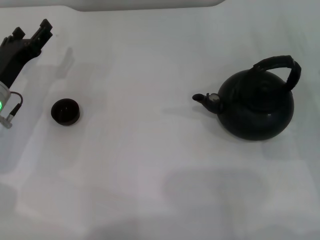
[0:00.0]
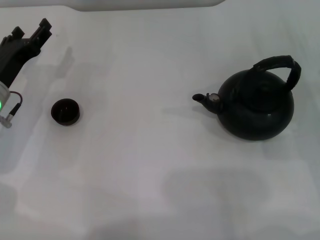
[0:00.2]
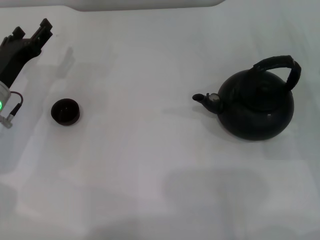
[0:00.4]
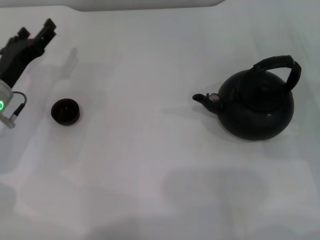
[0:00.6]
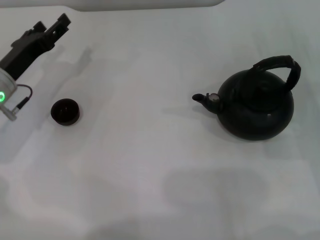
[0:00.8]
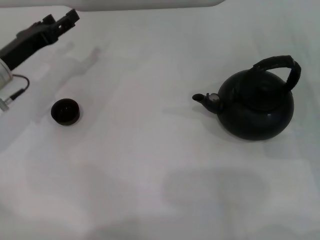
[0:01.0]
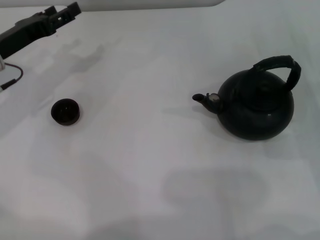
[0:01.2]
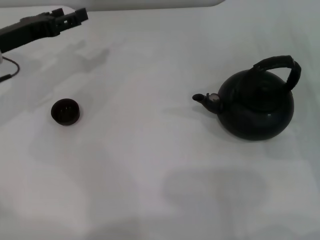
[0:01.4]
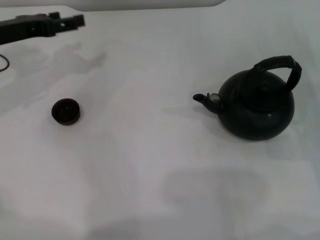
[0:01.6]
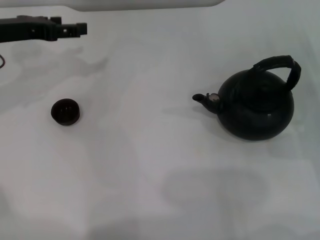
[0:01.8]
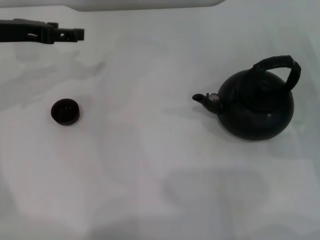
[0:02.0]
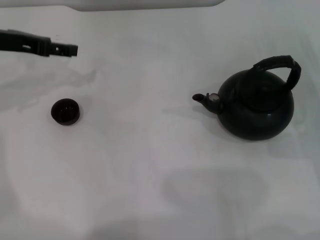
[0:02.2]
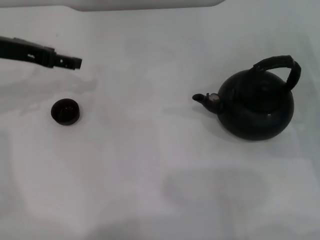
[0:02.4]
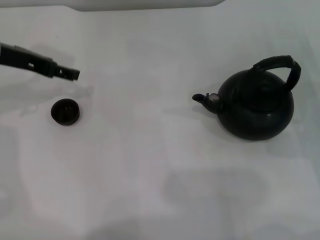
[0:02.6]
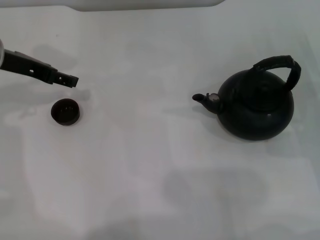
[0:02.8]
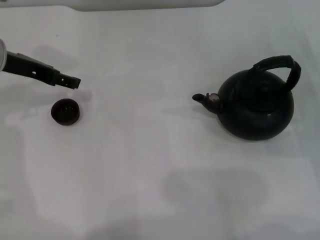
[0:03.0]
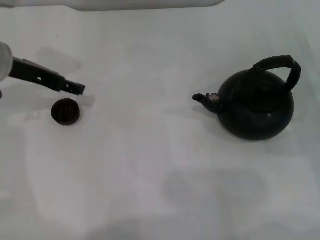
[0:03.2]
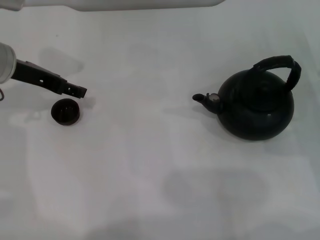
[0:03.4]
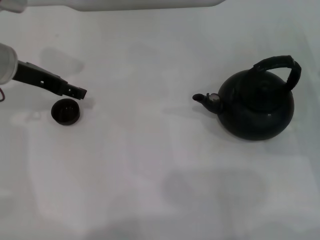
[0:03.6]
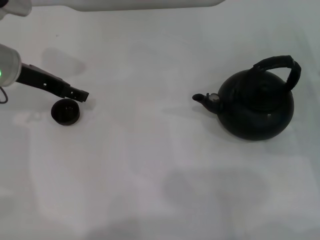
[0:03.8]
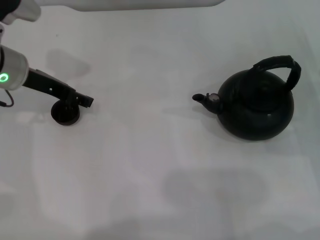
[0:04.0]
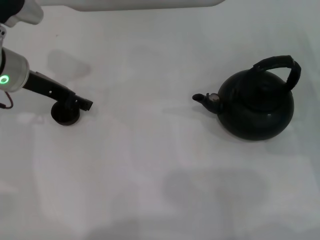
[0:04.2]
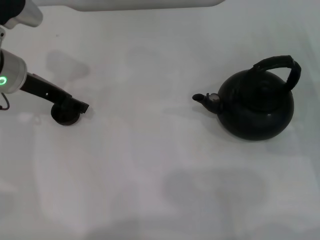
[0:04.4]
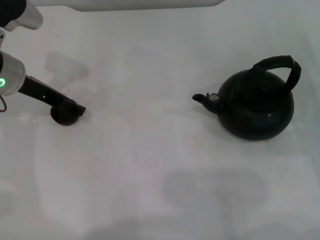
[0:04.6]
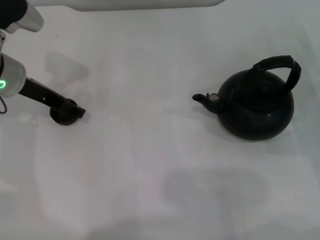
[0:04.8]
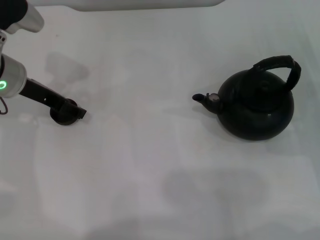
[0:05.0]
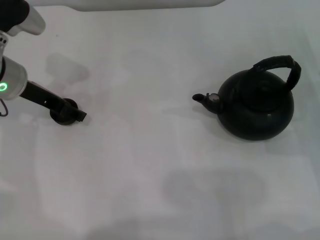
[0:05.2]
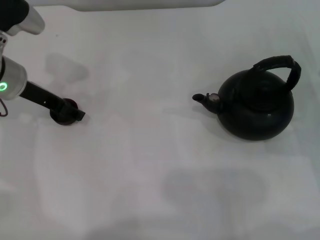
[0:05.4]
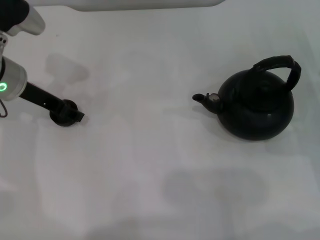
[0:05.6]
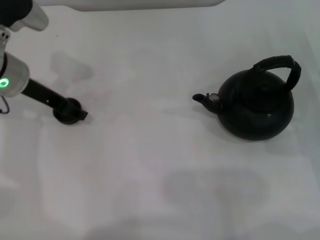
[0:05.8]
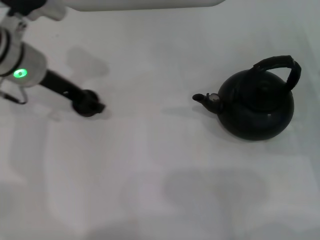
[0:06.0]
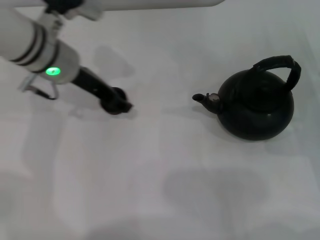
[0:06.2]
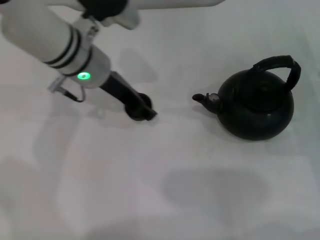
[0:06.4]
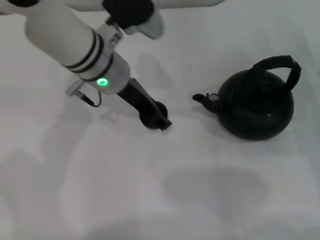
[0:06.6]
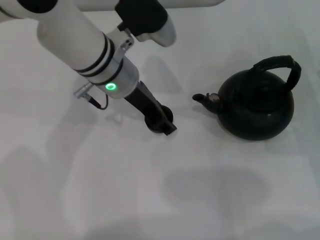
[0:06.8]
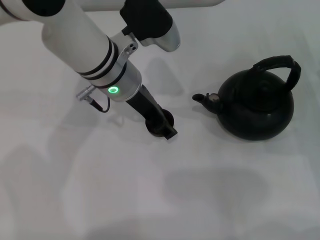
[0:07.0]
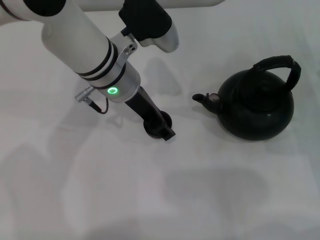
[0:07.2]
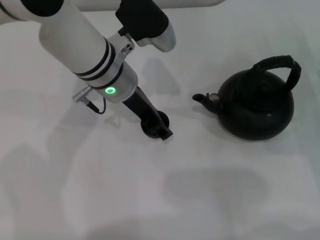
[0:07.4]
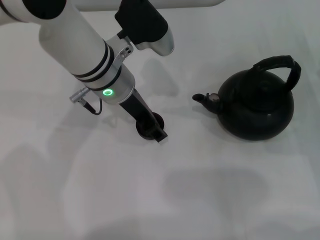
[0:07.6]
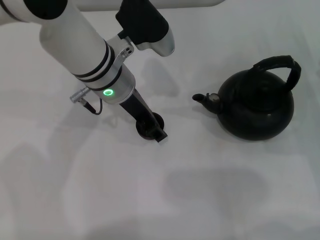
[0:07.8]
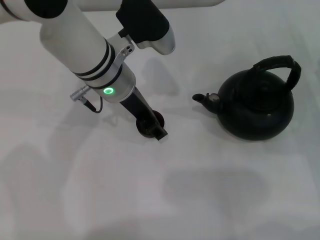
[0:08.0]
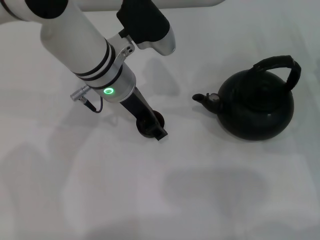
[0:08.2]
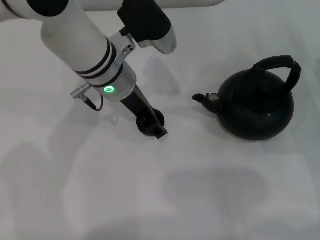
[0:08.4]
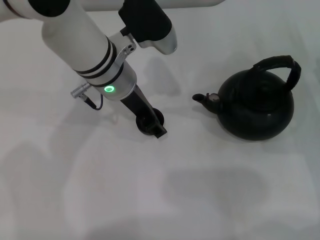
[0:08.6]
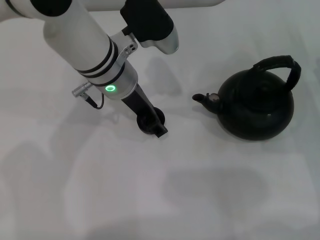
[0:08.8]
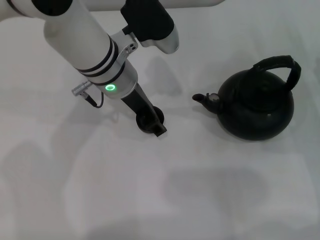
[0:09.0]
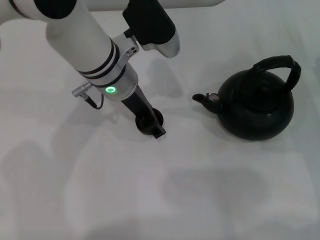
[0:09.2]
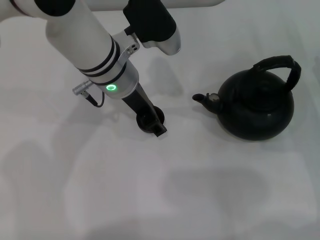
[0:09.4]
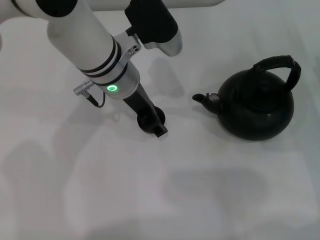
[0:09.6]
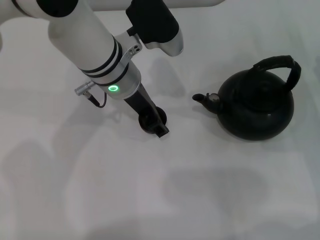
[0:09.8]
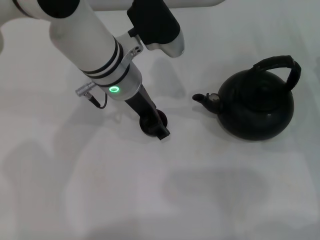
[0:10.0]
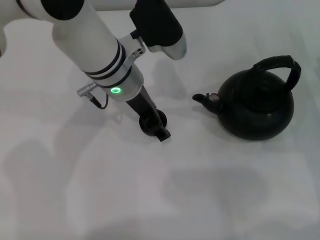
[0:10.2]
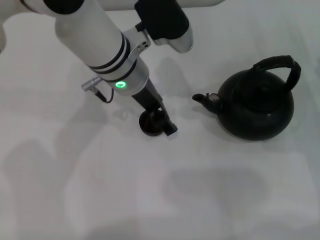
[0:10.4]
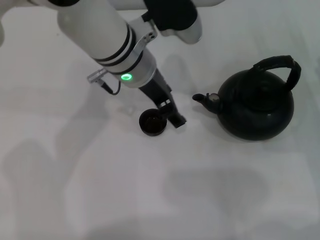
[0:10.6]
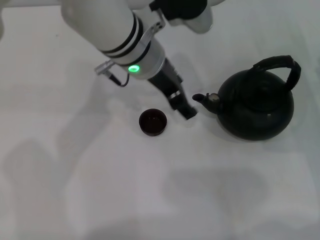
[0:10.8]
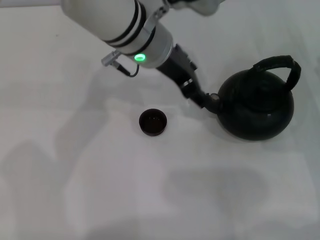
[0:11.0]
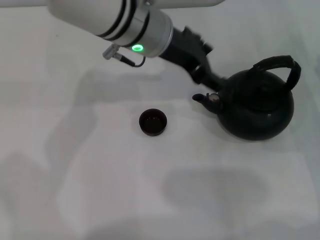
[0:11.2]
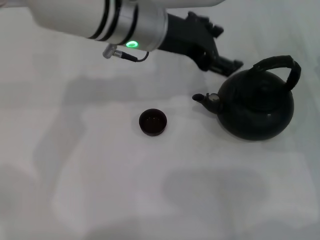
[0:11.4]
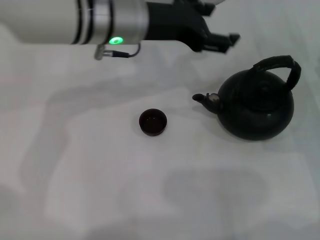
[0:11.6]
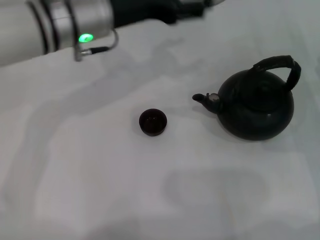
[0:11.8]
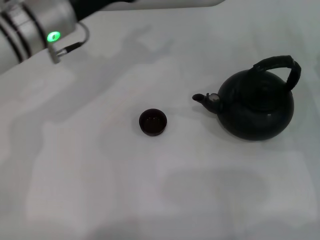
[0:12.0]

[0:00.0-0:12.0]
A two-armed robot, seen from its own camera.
Task of the whole recording: Grasp the handle of the teapot with one hand and pour tea into the teacup.
Step, 0:00.0 to 0:06.0: Pick up the teacup with the left gripper.
Step, 0:06.2 to 0:10.4: Place the teacup in the center of view with the left gripper.
0:00.0 to 0:01.6: The left gripper travels upward and forward by some 10 cm.
0:03.0 to 0:04.4: The grippers stay close to where they were, moving slightly.
0:04.4 to 0:06.0: The left gripper closes its fingers.
0:06.0 to 0:07.6: The left gripper heads to the right, covering some 10 cm.
0:07.6 to 0:09.0: Neither gripper changes place.
0:09.0 to 0:10.4: The left gripper opens its fingers.
0:10.4 to 0:12.0: The left gripper is displaced to the left by about 10 cm.

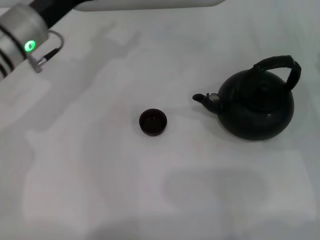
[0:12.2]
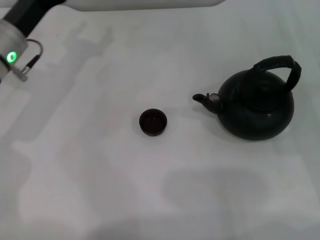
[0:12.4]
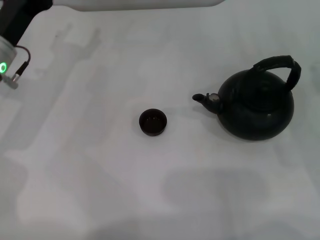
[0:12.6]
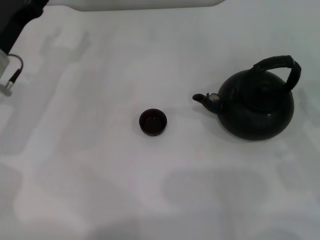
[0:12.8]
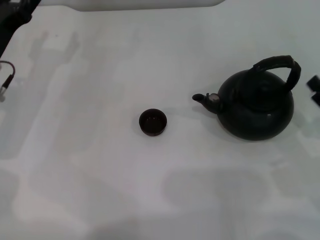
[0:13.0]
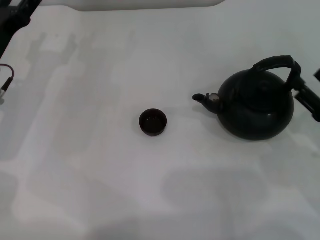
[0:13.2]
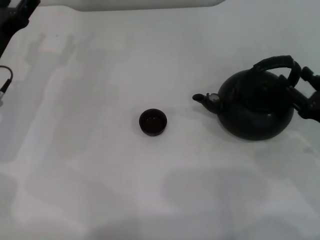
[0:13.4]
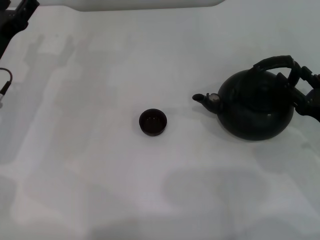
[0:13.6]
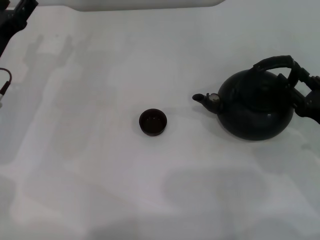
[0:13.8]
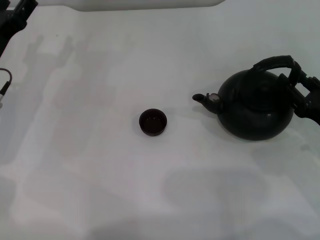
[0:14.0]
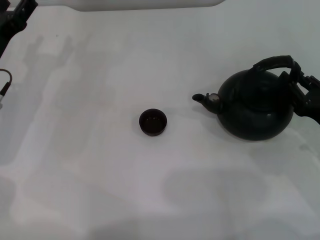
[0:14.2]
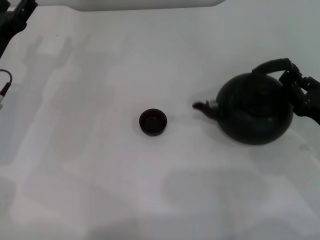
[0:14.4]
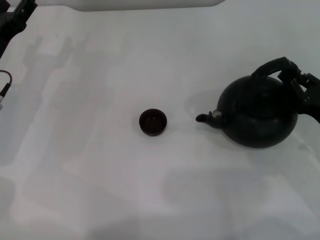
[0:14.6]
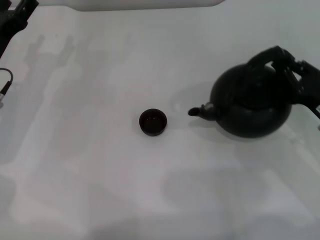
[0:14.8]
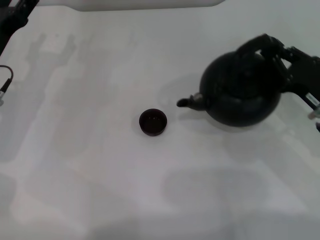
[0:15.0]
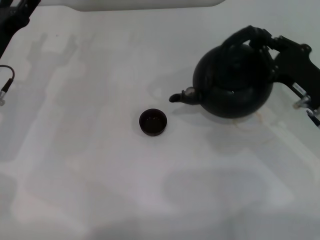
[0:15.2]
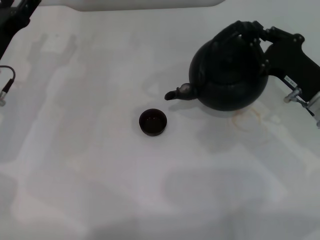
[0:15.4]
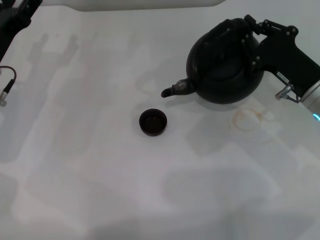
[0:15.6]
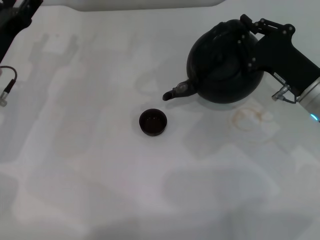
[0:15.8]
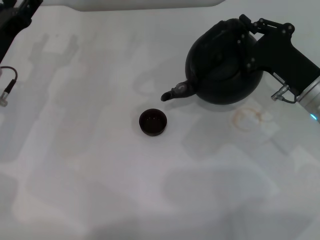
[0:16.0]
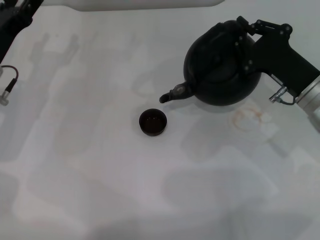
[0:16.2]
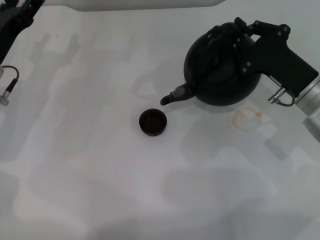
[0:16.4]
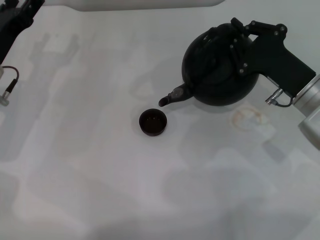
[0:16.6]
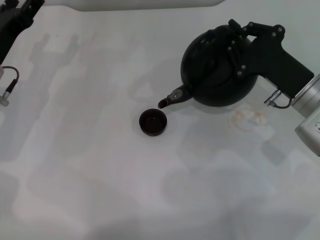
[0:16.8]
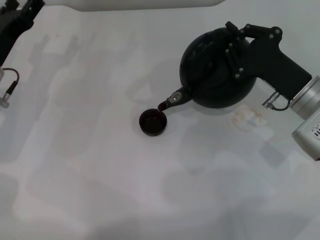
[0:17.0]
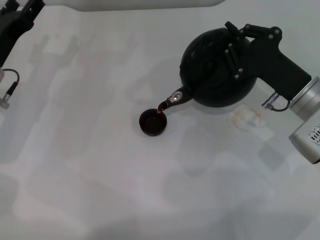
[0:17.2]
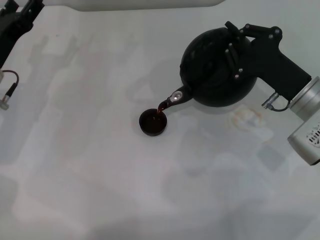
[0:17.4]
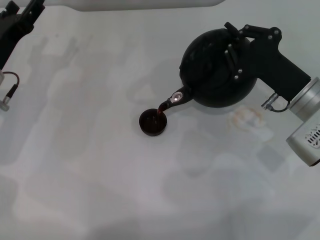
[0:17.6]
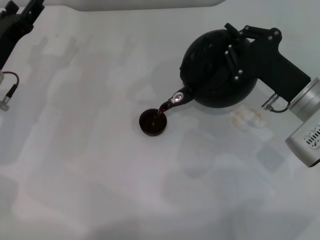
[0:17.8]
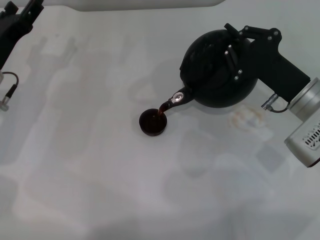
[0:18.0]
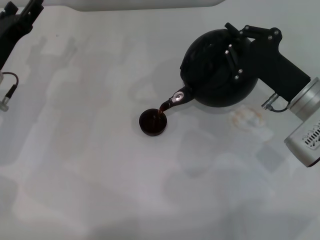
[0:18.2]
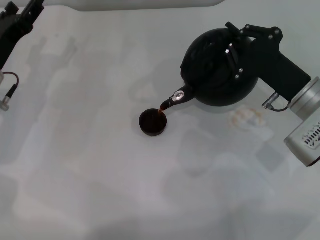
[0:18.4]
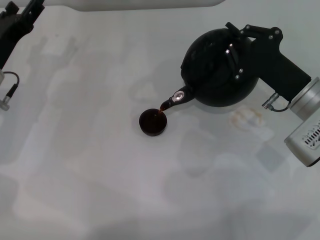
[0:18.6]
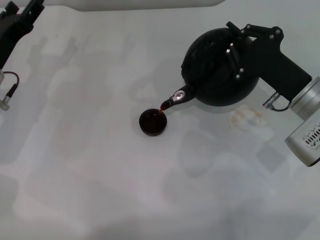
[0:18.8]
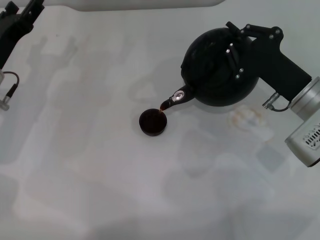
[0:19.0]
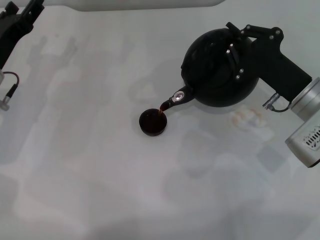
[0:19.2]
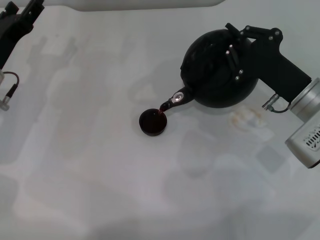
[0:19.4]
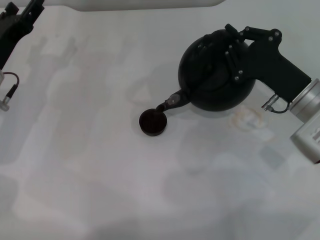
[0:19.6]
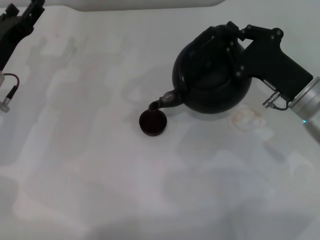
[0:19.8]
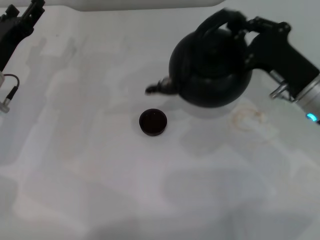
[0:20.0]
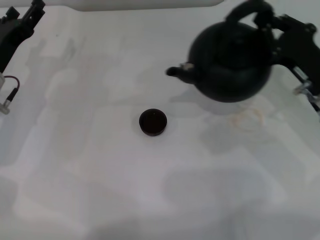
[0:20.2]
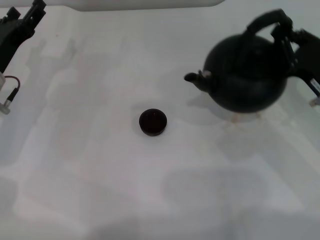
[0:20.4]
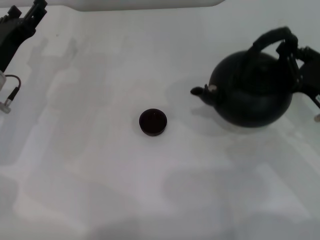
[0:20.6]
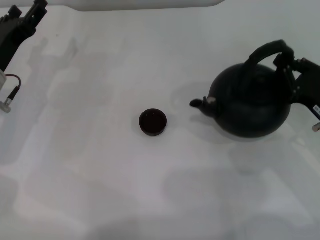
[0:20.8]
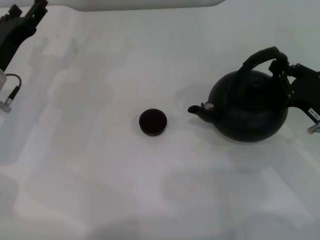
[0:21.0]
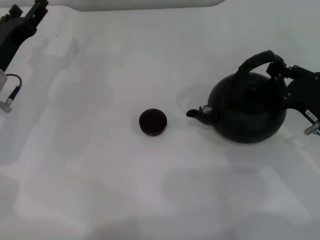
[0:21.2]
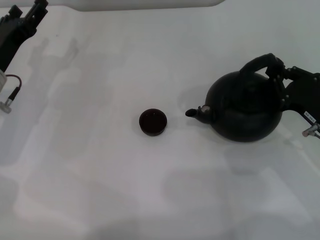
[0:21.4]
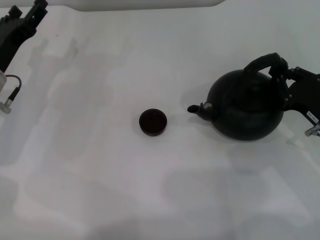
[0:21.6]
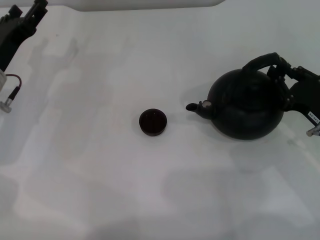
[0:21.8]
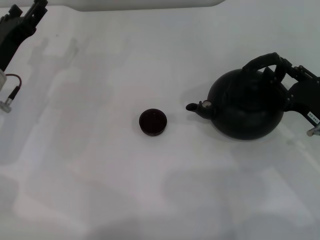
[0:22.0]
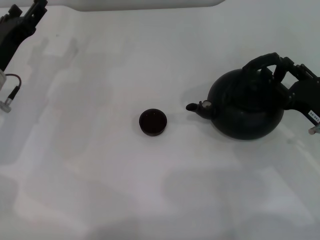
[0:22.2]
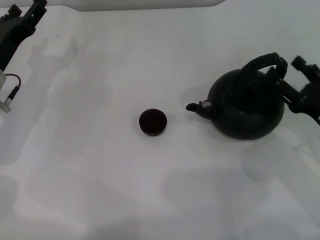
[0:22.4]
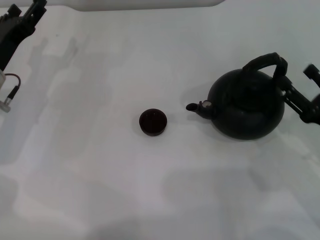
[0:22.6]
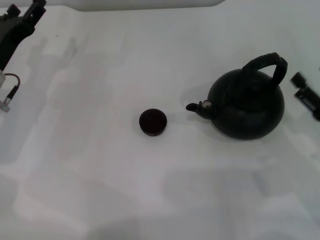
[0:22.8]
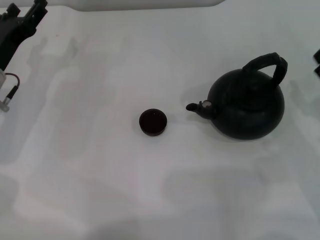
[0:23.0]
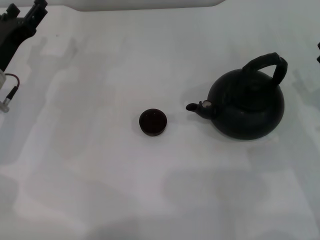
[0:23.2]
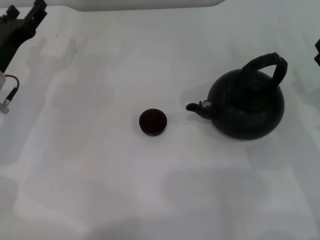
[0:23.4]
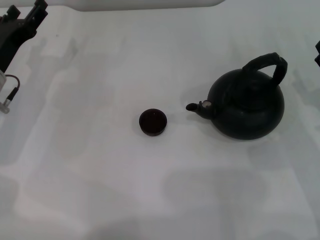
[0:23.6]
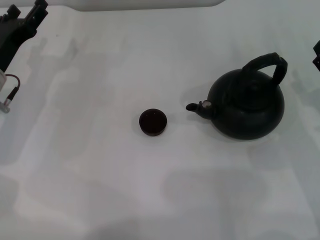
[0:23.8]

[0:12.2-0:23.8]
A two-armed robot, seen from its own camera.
Task of the whole recording: Grasp the handle of the teapot with one hand and pour tea into the teacup.
Step, 0:12.2 to 0:16.0: Pick up the teapot with the right gripper.
Step, 0:16.2 to 0:19.8: Pour tea into the teacup with the right gripper.
Step, 0:20.0 to 0:22.6: Put down the teapot with the right gripper.
0:12.2 to 0:13.6: The right gripper shifts by approximately 5 cm. Meanwhile the left gripper moves to the left and downward, roughly 10 cm.
0:13.6 to 0:15.0: The right gripper closes its fingers.
0:15.0 to 0:16.6: The right gripper changes place by roughly 5 cm.
0:16.6 to 0:18.0: The grippers move only a little.
0:18.0 to 0:19.4: Both grippers stay put.
0:19.4 to 0:21.0: The right gripper is displaced to the right by approximately 5 cm.
0:21.0 to 0:22.4: The right gripper opens its fingers.
